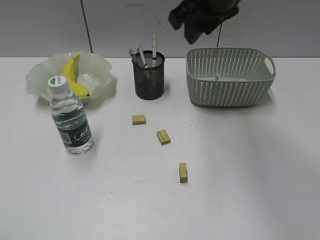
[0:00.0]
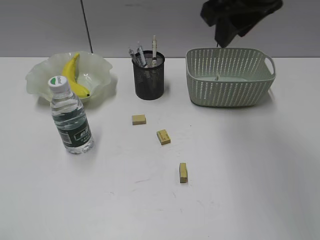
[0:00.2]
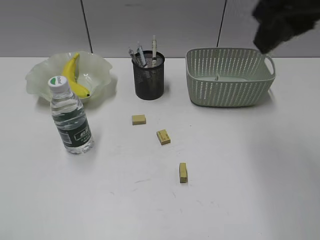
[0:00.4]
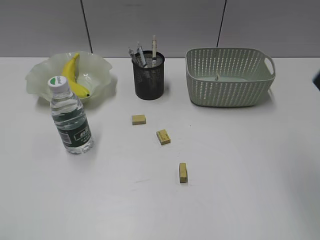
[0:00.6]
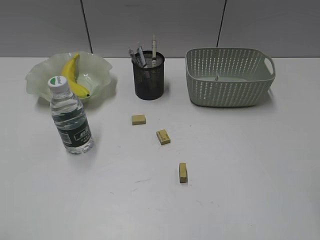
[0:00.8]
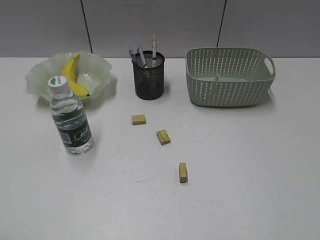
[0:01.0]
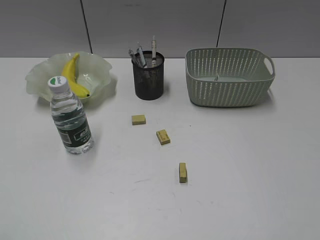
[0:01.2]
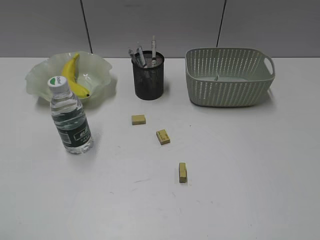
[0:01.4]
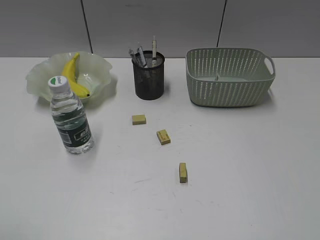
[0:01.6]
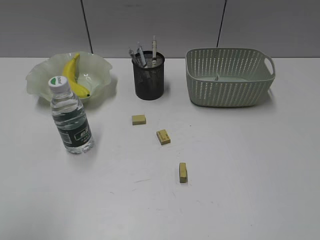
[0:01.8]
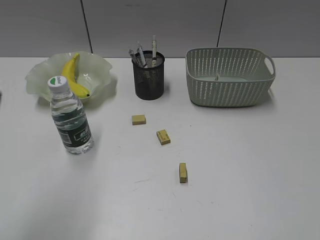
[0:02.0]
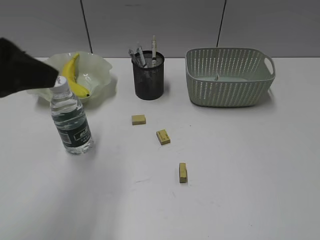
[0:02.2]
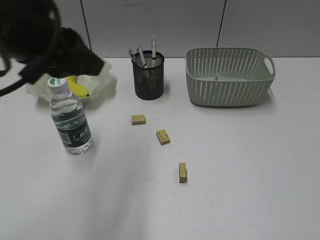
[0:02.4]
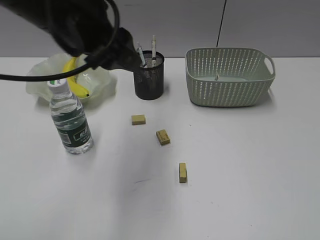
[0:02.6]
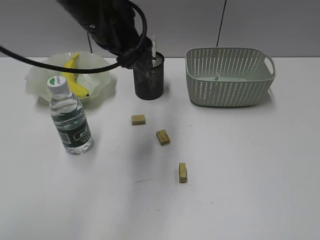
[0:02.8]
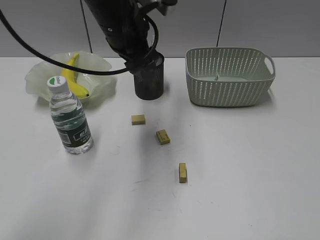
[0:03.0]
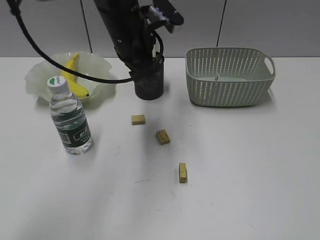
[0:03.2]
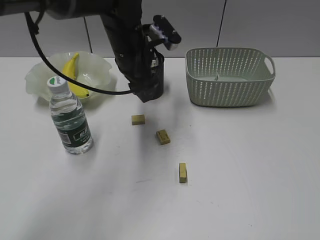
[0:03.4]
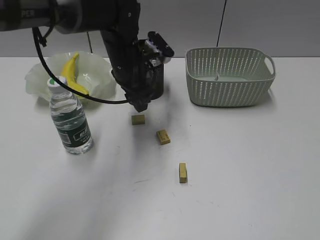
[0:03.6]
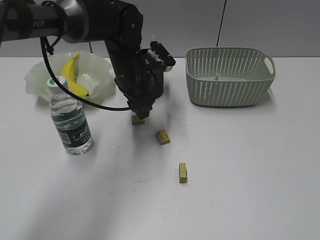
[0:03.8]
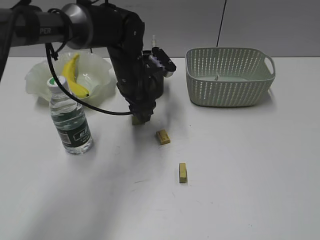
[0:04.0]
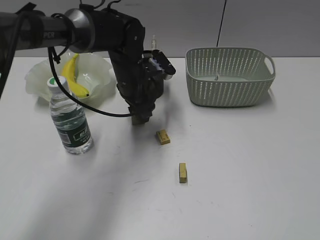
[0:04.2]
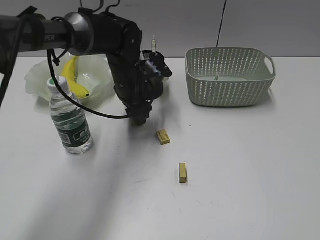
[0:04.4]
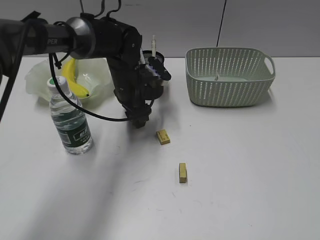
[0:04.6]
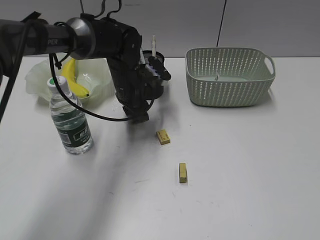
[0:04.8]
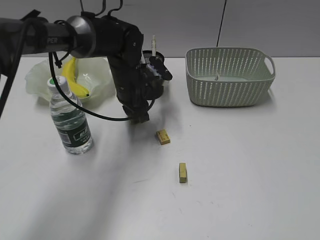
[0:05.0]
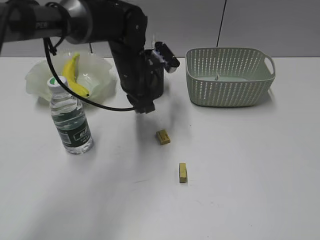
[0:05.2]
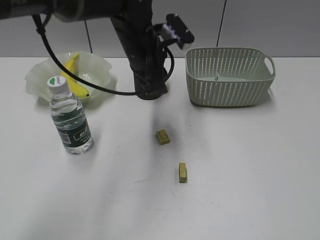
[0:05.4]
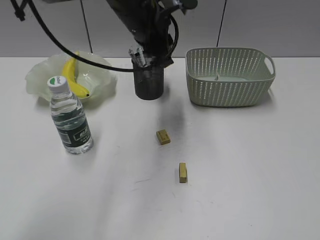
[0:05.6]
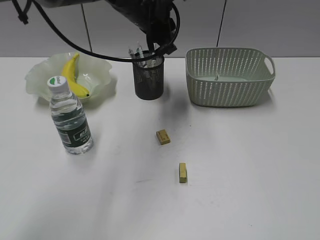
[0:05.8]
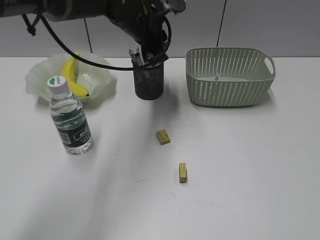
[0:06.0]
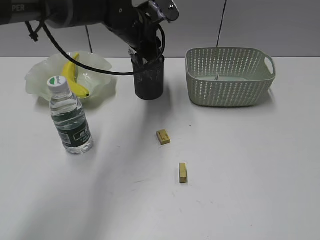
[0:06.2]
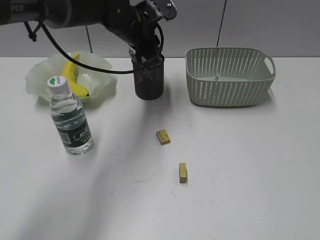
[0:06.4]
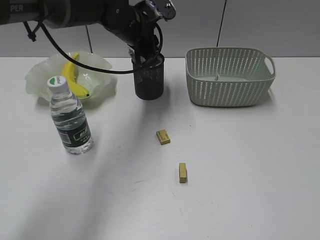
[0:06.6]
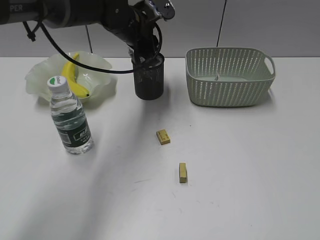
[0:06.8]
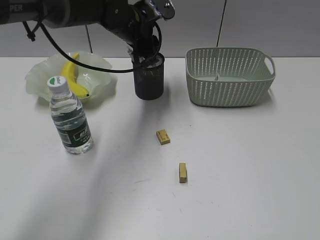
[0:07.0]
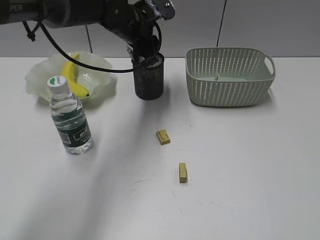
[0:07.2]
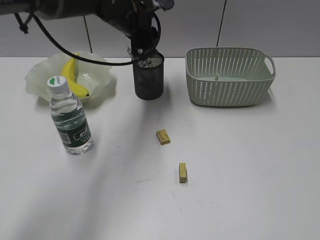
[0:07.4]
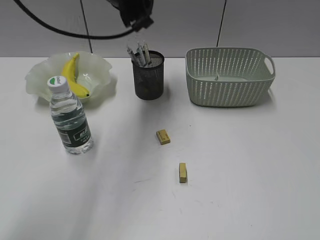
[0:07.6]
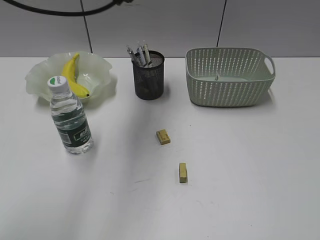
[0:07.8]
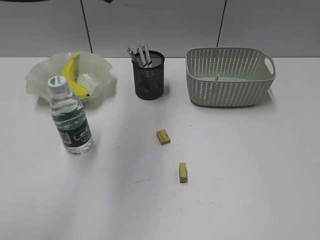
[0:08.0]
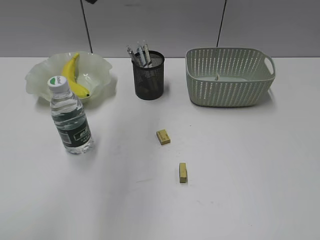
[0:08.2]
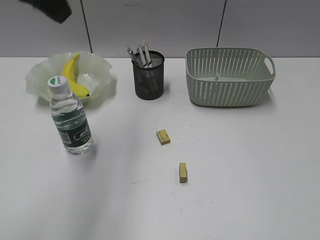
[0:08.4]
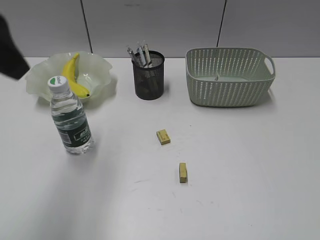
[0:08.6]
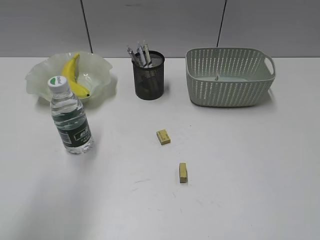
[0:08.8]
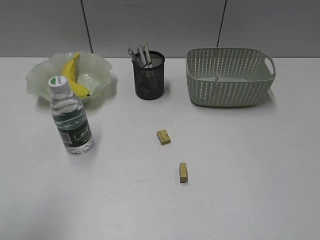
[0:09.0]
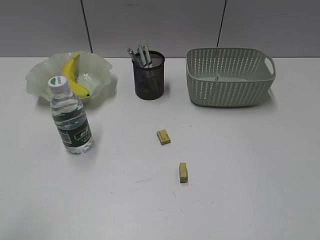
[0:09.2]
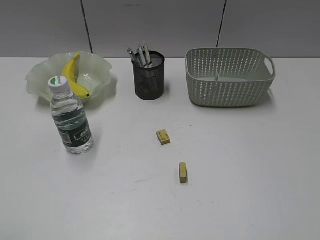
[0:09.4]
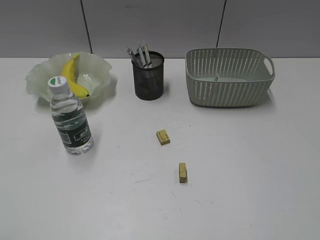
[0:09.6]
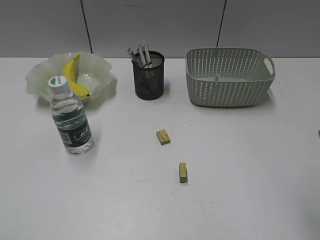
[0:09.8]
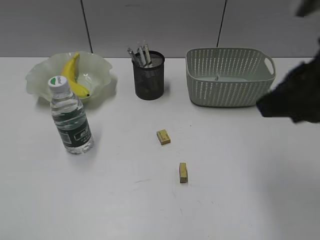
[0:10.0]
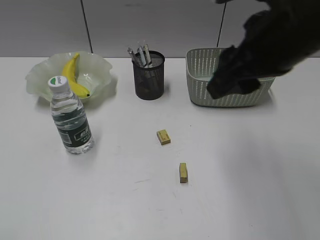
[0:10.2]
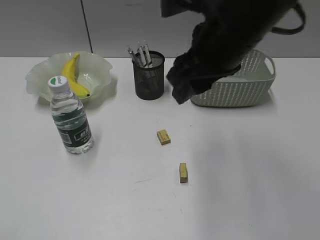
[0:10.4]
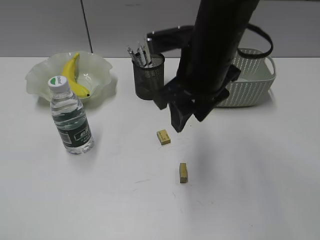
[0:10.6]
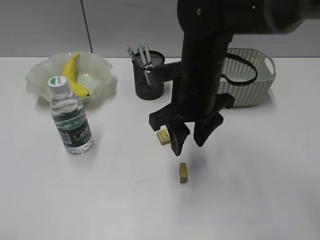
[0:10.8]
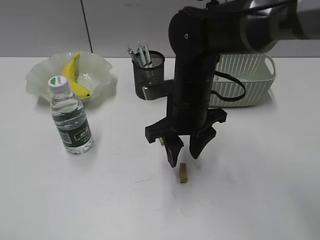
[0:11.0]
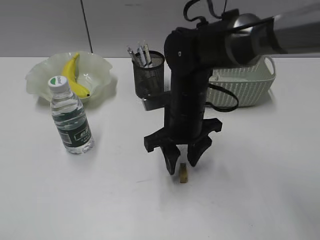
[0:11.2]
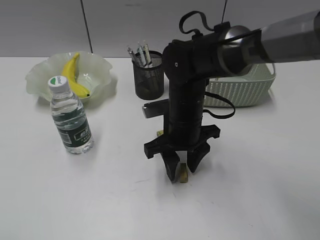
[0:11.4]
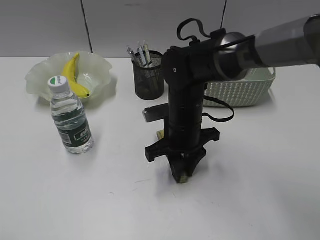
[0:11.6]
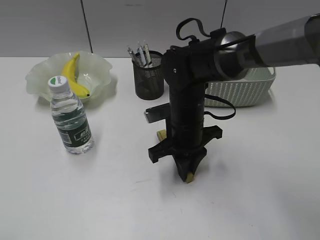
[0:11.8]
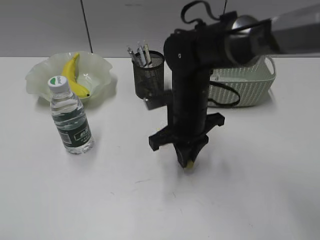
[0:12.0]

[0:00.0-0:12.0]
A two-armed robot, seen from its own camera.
Step, 0:00.0 to 0:04.8: Grasp the eraser with left gripper.
Step, 0:00.0 to 0:11.6: Grasp the eraser with right gripper.
Step, 0:05.0 to 0:07.0: Place the eraser in pen holder with left gripper.
0:00.0 to 0:01.6: The right gripper is displaced backward and to the right by about 40 cm.
0:01.6 to 0:03.0: The left gripper shifts about 40 cm forward and to the right, and opens its fingers.
0:03.0 to 0:04.4: The left gripper moves downward, about 15 cm.
0:04.4 to 0:06.0: The left gripper moves upward, about 10 cm, and closes up.
0:06.0 to 0:07.6: The left gripper travels upward by about 10 cm.
0:07.6 to 0:09.0: The left gripper goes some 40 cm backward and to the left.
0:09.0 to 0:10.4: The right gripper is displaced forward and to the left by roughly 35 cm; the left gripper is displaced backward and to the left by some 10 cm.
0:10.4 to 0:12.0: The right gripper shifts approximately 15 cm downward, and closes.

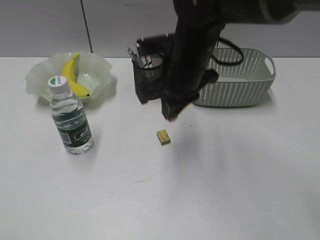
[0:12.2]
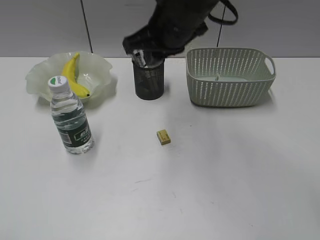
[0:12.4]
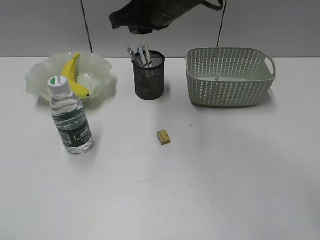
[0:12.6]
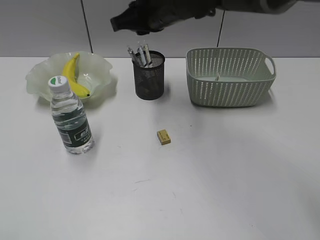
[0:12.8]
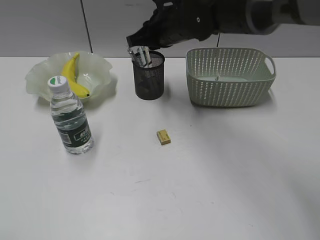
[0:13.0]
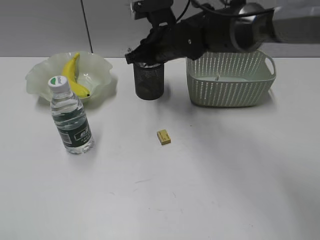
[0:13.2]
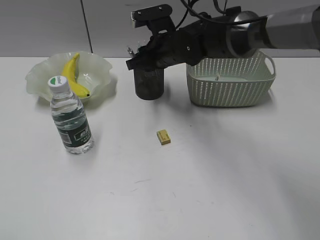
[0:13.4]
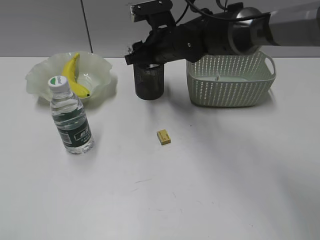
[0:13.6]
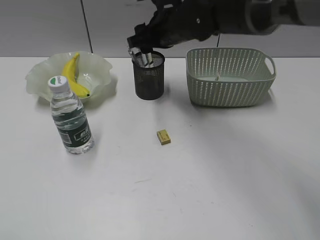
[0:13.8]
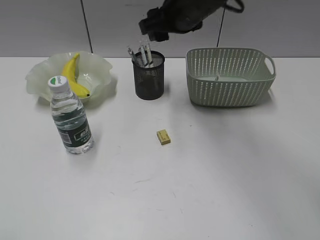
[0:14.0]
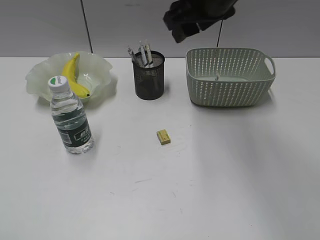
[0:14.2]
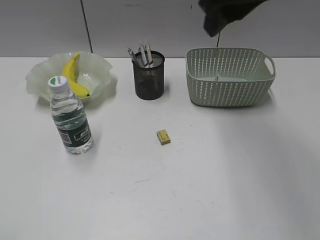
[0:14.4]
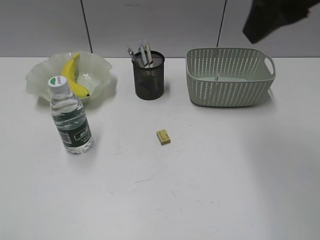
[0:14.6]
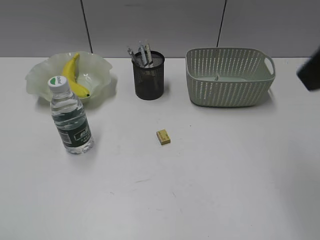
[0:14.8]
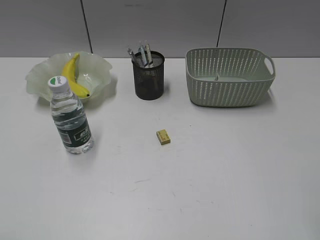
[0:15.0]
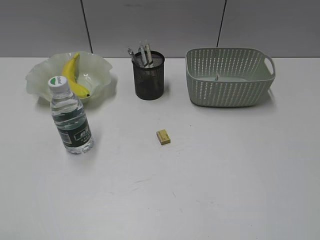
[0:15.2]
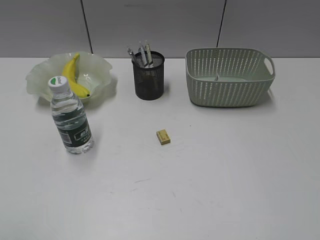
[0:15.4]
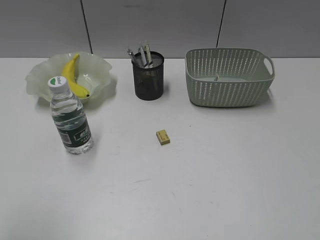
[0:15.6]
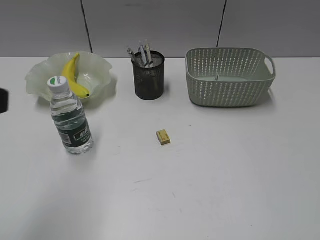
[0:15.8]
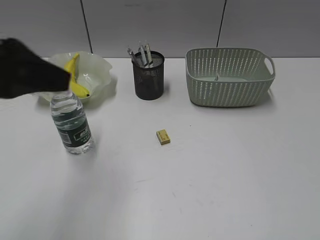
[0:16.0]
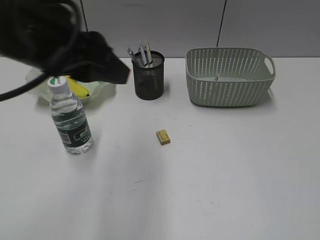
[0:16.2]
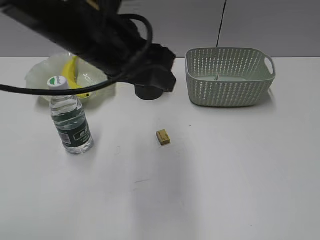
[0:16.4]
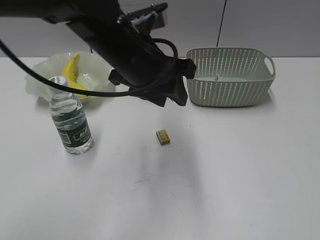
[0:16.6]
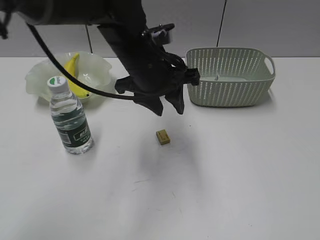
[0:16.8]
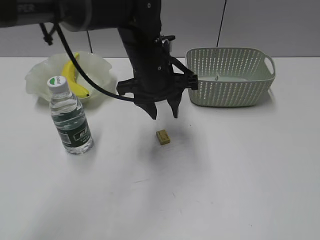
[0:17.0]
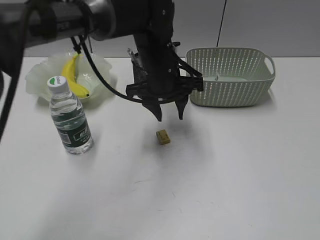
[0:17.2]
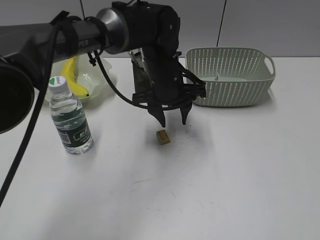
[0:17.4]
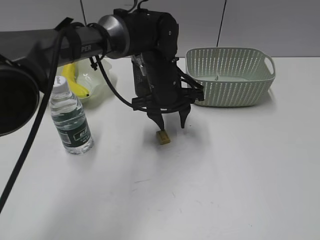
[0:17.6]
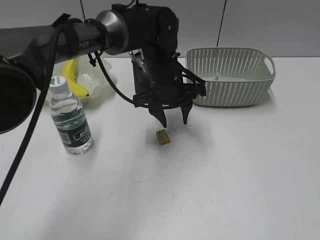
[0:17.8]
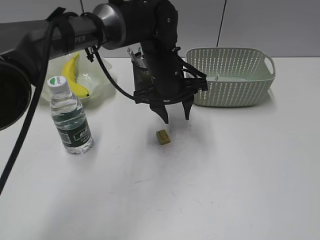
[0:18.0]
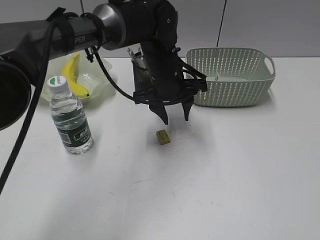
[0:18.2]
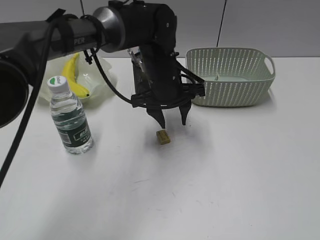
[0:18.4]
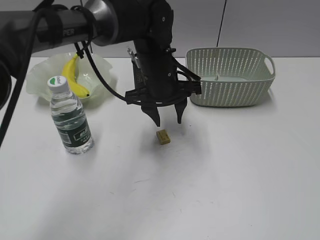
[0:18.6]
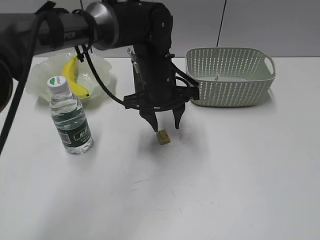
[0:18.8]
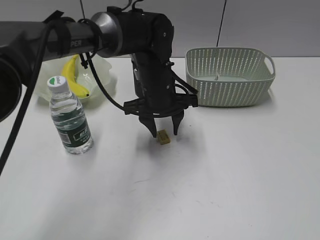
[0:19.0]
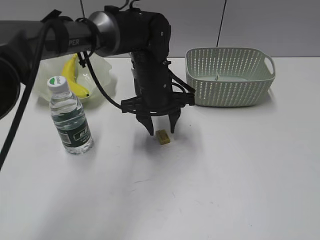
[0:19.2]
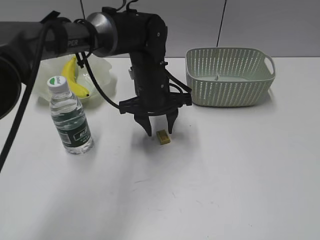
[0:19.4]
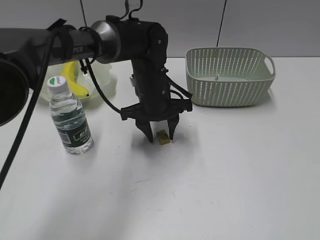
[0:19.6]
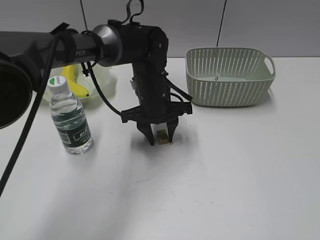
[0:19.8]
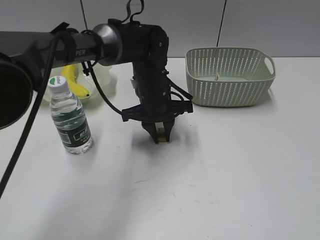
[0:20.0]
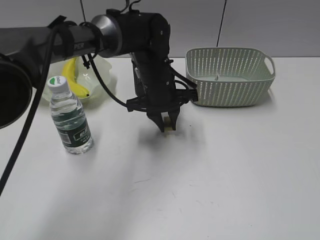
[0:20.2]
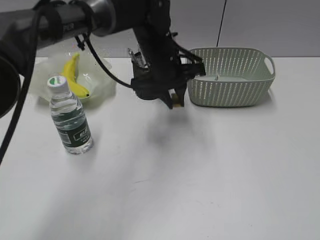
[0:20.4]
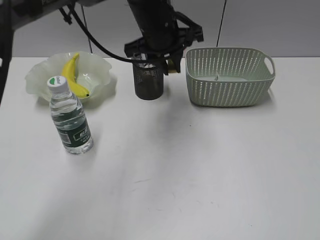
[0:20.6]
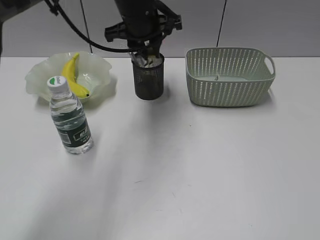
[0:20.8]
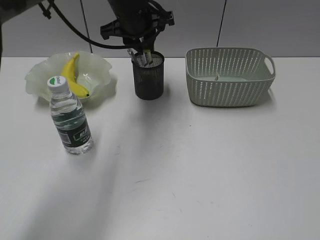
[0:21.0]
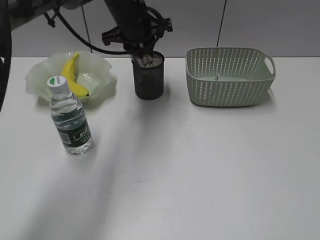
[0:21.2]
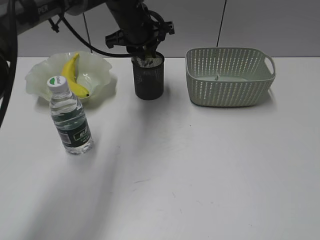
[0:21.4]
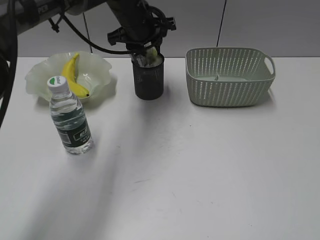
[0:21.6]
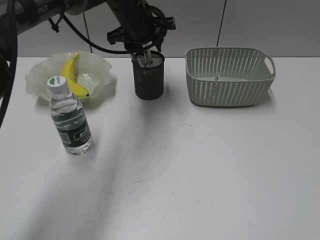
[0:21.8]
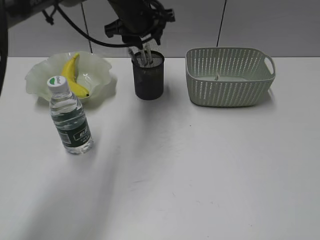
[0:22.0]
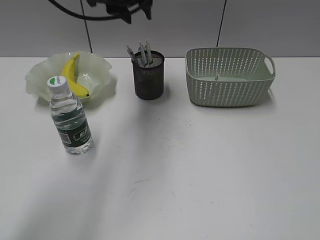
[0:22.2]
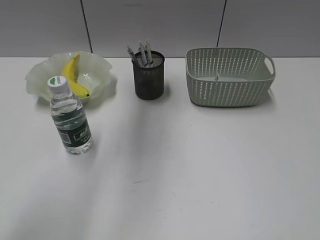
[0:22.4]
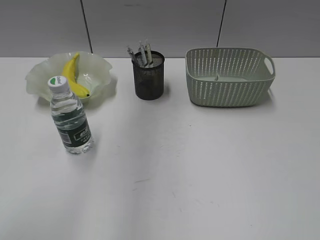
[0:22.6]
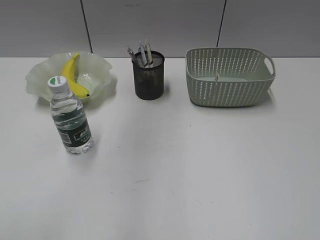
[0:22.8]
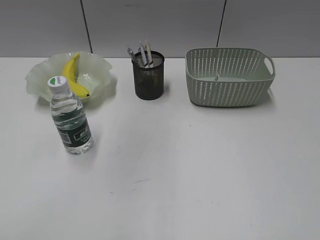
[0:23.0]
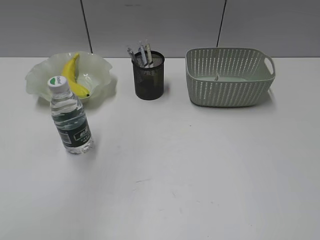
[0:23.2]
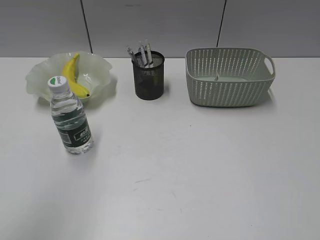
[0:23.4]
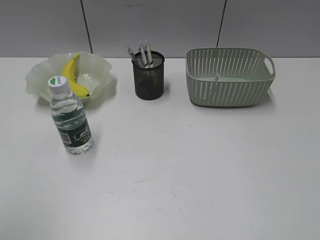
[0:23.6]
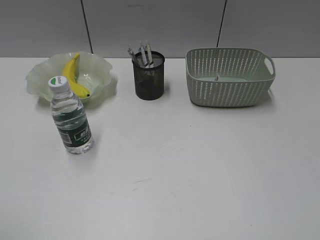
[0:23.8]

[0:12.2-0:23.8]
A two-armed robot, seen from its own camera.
Step, 0:12.2 to 0:13.4: Place the eraser in pen holder with right gripper.
Step, 0:13.6 to 0:20.0: Grasp the eraser with left gripper.
Step, 0:20.2 to 0:21.6: Place the eraser in pen holder with left gripper.
0:12.2 to 0:13.6: The right gripper shifts approximately 10 cm forward, and opens.
0:13.6 to 0:15.0: The right gripper shifts roughly 40 cm backward, to the right and upward.
0:15.0 to 0:16.6: The right gripper heads backward, downward and to the right, covering some 15 cm. Meanwhile the left gripper moves forward and to the right, roughly 40 cm.
0:16.6 to 0:18.0: The left gripper goes about 15 cm forward, downward and to the right.
0:18.0 to 0:19.4: The grippers make only small movements.
0:19.4 to 0:21.0: The left gripper moves upward and forward, approximately 15 cm, and closes its fingers.
0:21.0 to 0:22.4: The left gripper travels upward by roughly 15 cm, and opens its fingers.
0:22.4 to 0:23.8: The left gripper travels backward and to the left by some 40 cm.
